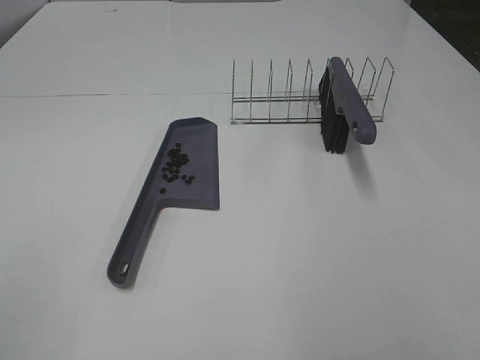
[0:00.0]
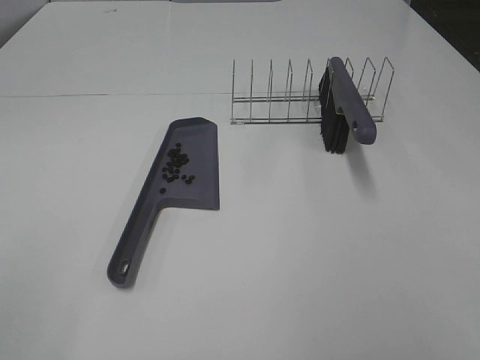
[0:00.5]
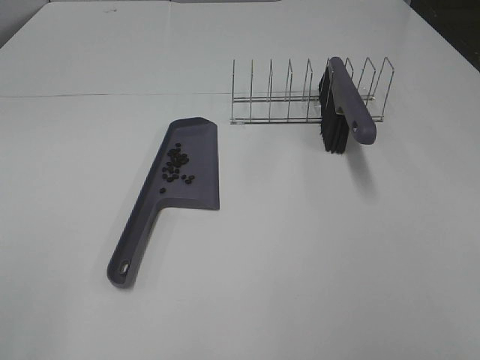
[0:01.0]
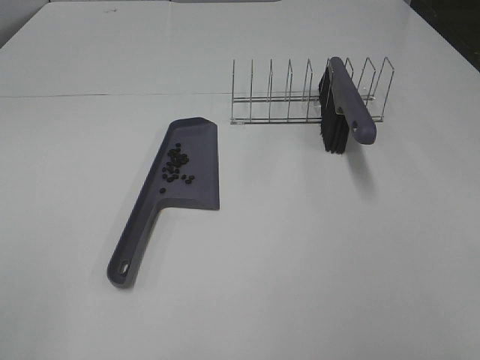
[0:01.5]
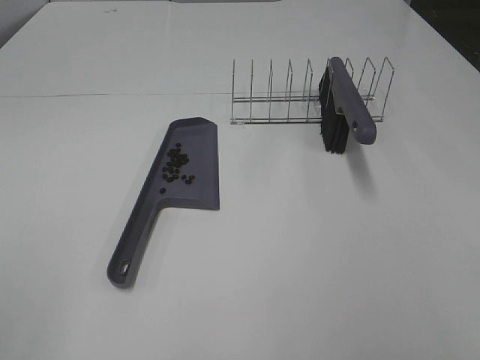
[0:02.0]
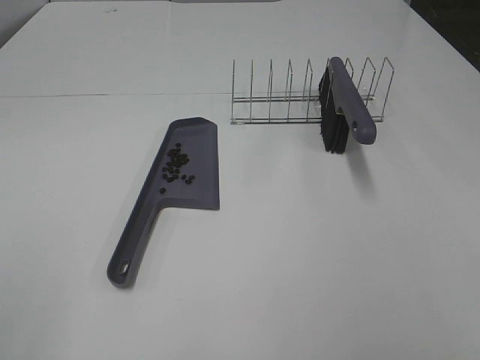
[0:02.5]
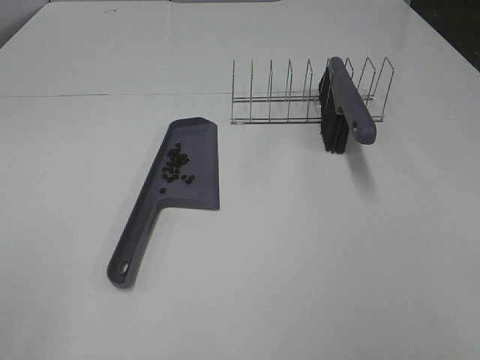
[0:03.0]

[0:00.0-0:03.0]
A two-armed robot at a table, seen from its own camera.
Task of the whole recording: Sweep Coffee Bean.
0:01.5 to 0:03.0: Both grippers stay about where they are.
